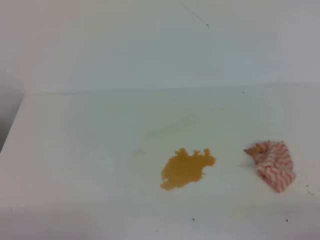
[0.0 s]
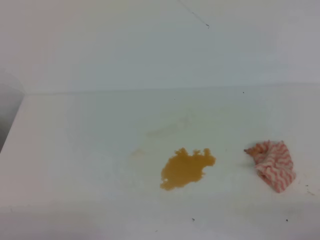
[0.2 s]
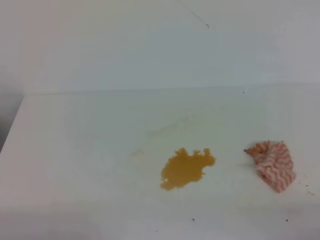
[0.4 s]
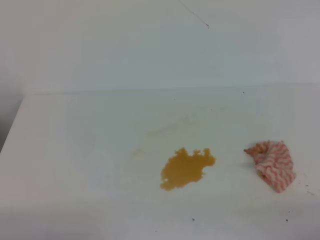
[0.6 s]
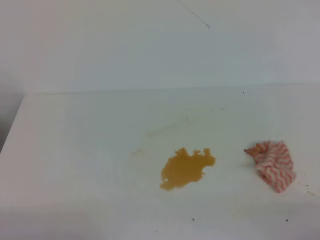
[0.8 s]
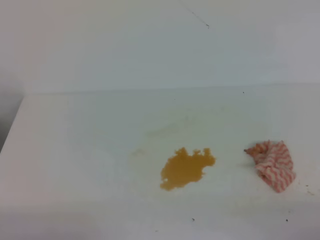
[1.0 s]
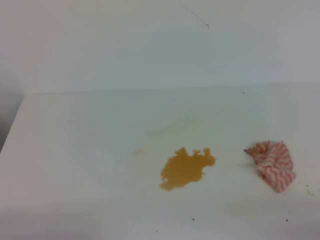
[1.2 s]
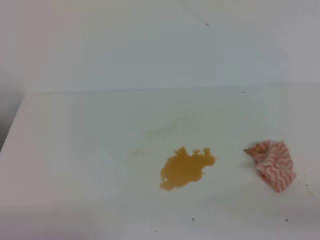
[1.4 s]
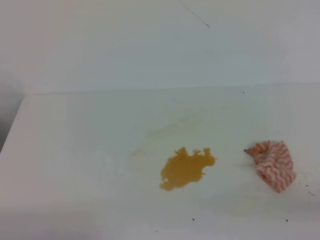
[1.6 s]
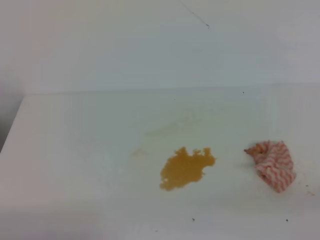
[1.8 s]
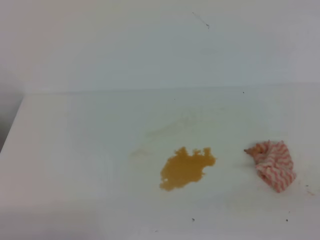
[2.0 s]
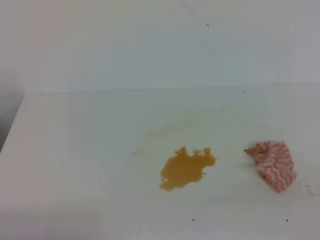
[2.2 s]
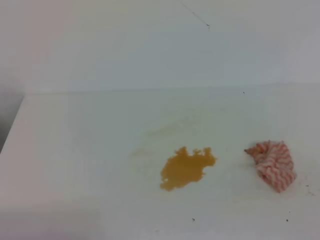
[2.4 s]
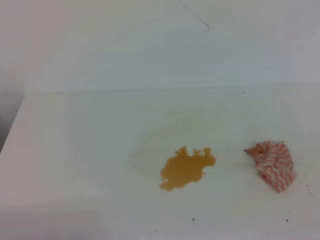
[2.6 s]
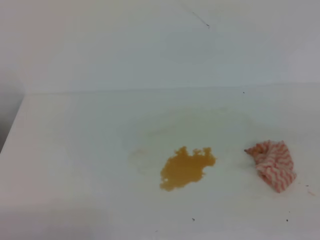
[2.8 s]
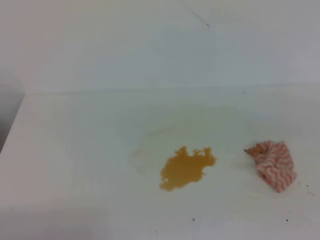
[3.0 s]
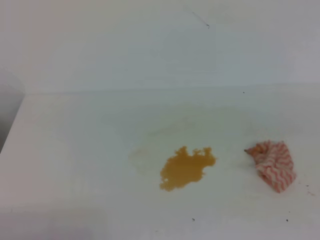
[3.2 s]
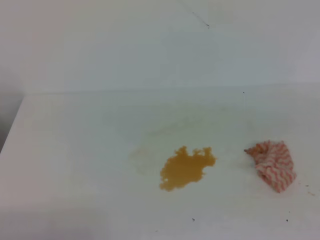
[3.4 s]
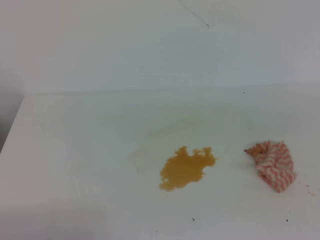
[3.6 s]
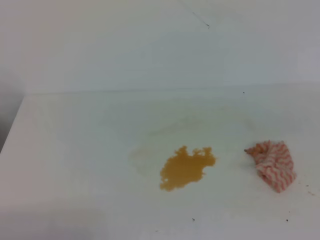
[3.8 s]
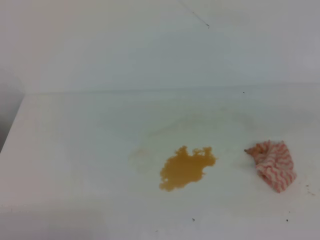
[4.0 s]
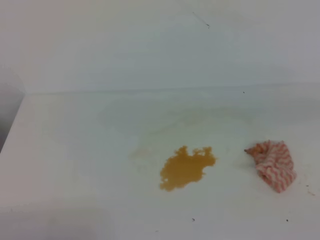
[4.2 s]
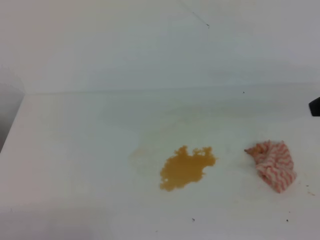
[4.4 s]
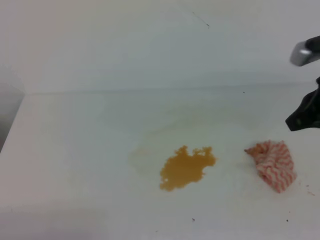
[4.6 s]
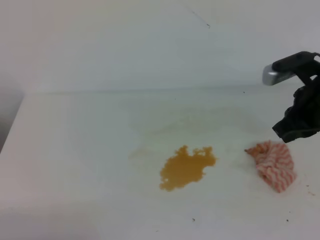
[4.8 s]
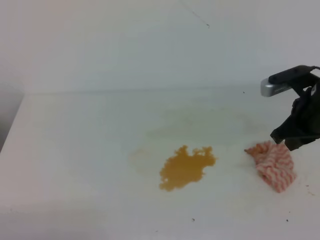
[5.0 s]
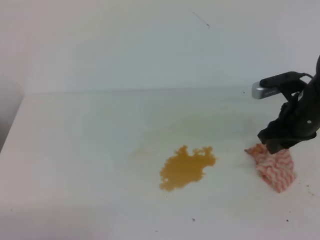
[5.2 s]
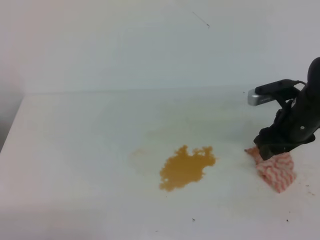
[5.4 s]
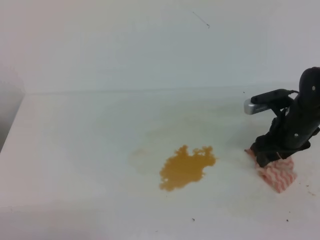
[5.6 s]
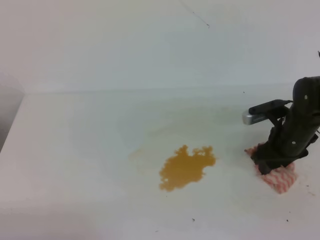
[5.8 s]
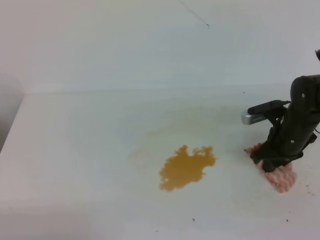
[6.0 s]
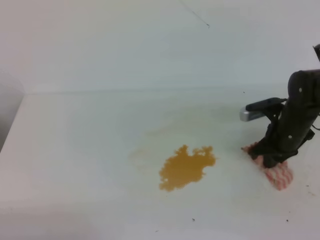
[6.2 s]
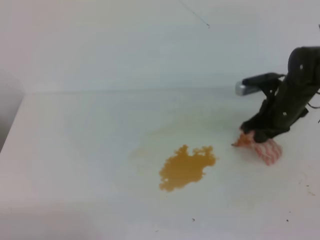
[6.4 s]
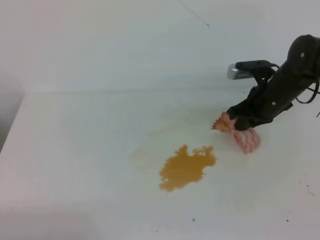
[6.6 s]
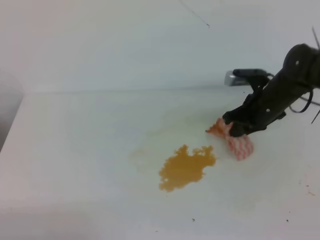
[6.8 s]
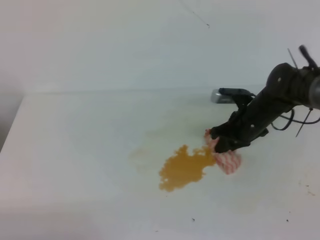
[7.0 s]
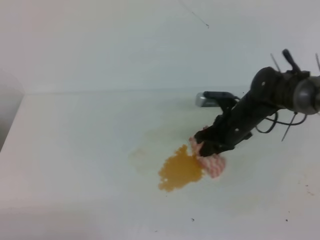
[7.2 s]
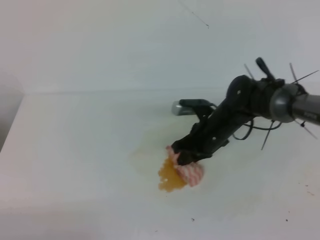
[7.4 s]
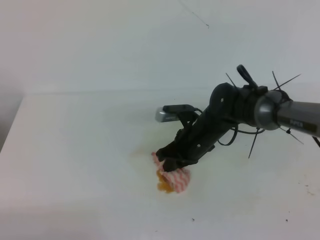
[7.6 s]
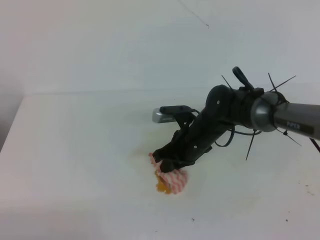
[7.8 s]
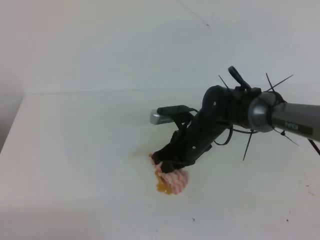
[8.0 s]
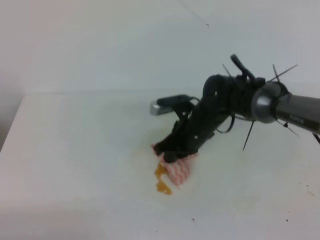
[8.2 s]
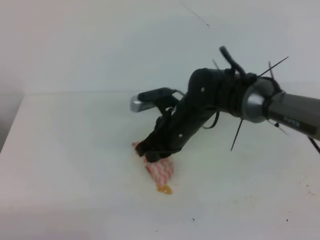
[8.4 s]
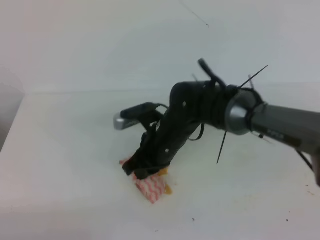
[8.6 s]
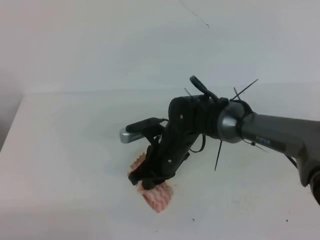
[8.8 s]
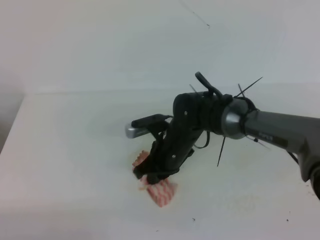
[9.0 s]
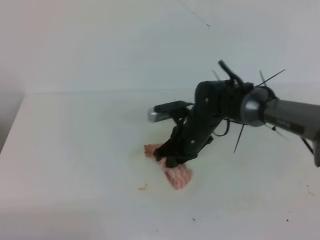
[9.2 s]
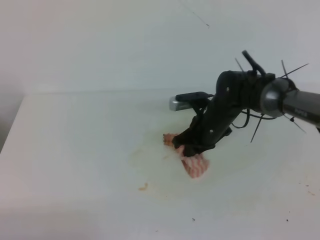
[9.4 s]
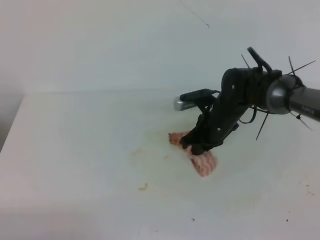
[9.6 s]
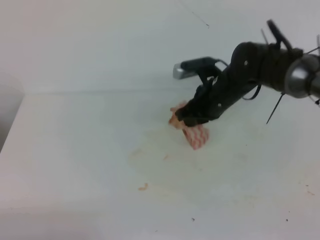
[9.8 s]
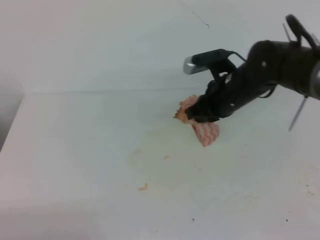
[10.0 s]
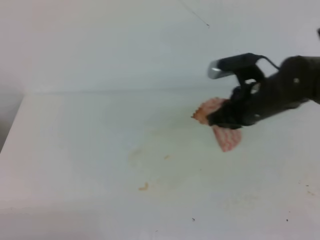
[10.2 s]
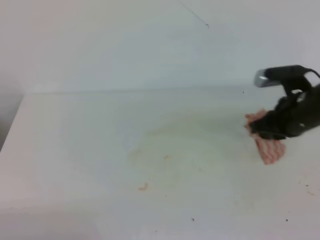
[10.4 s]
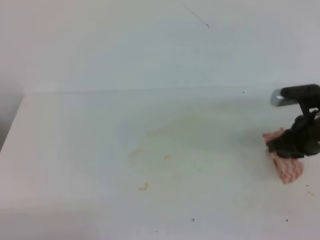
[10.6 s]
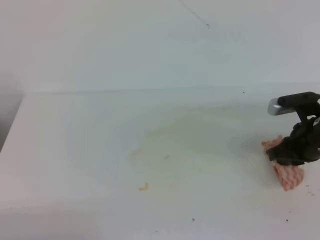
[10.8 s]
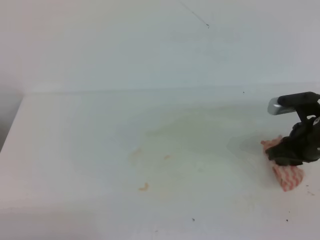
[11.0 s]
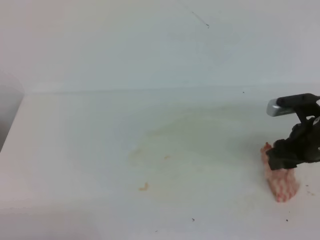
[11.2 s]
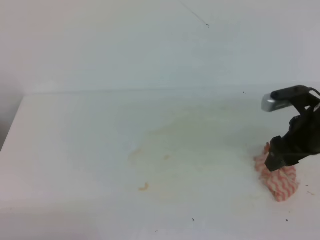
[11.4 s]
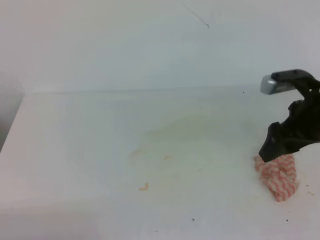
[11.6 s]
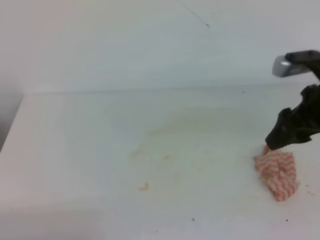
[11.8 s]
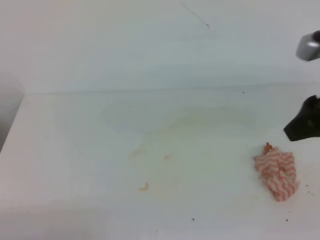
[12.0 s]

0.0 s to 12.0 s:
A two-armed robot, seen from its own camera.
4.4 to 6.0 s: The right gripper shifts roughly 25 cm downward and forward, and opens its fingers.
6.0 to 7.6 s: The right gripper moves to the left, approximately 15 cm, and closes its fingers.
7.6 to 9.0 s: The right gripper travels upward and back again, some 10 cm each way.
9.0 to 10.4 s: The right gripper travels to the right and upward by roughly 20 cm.
10.4 to 12.0 s: The right gripper travels upward and backward by about 15 cm, and opens up.

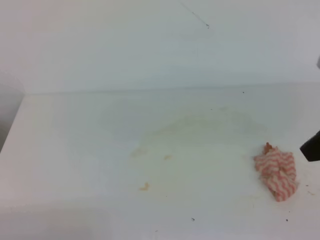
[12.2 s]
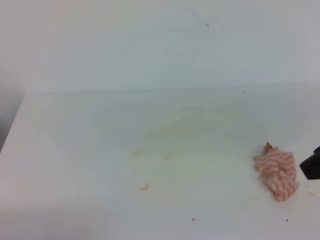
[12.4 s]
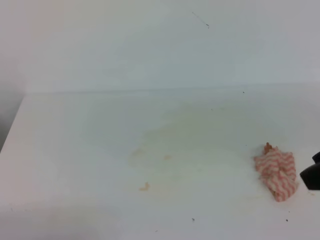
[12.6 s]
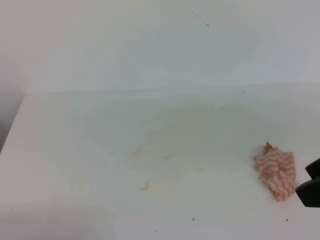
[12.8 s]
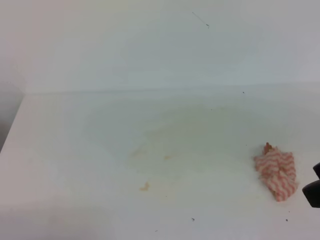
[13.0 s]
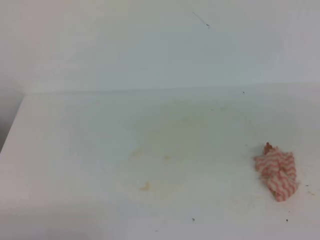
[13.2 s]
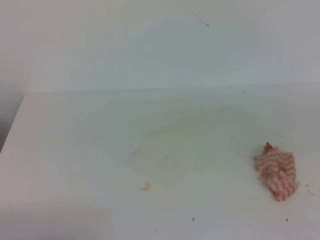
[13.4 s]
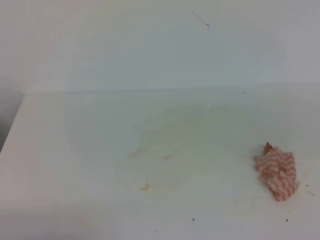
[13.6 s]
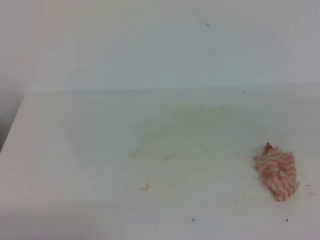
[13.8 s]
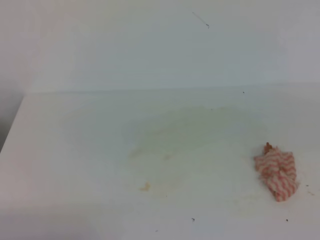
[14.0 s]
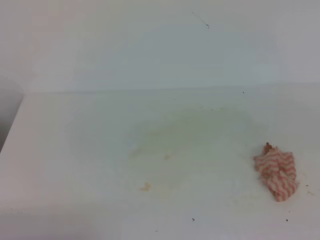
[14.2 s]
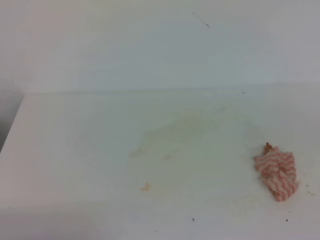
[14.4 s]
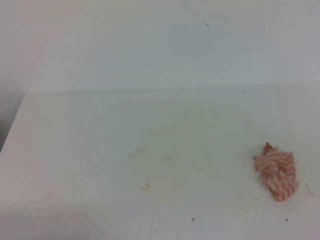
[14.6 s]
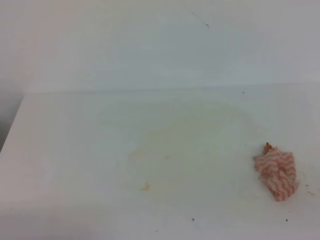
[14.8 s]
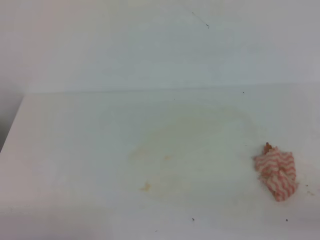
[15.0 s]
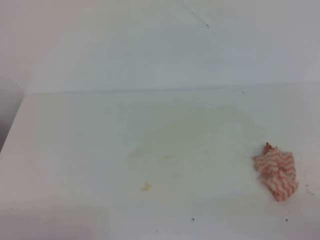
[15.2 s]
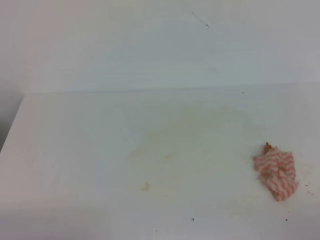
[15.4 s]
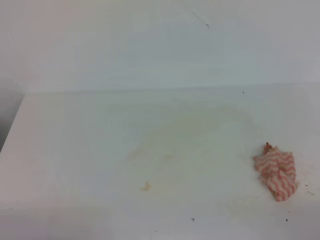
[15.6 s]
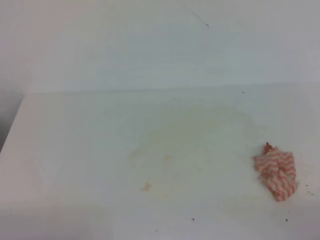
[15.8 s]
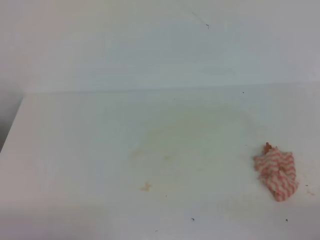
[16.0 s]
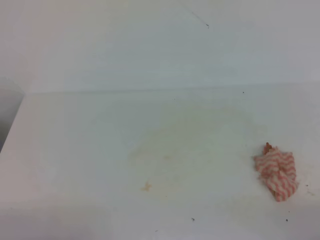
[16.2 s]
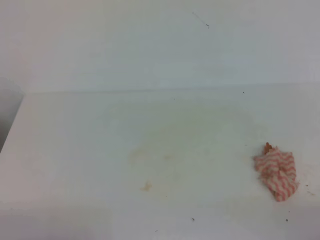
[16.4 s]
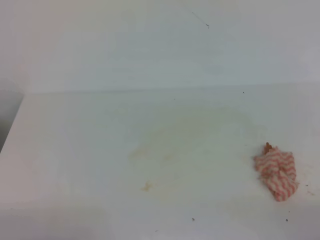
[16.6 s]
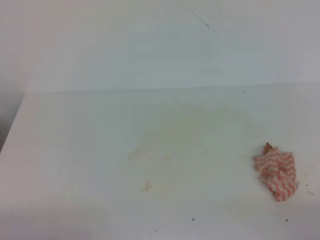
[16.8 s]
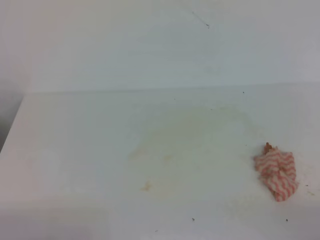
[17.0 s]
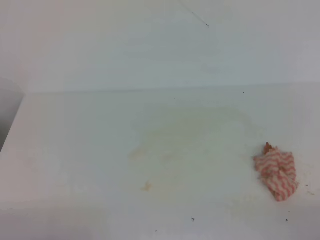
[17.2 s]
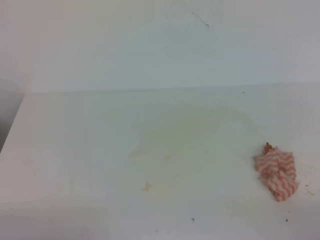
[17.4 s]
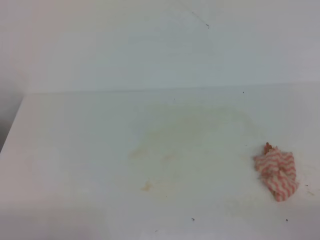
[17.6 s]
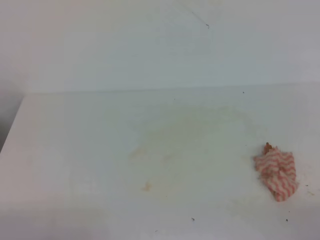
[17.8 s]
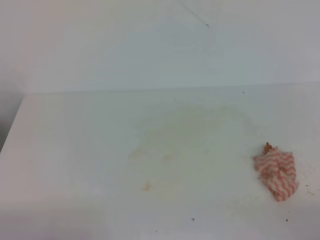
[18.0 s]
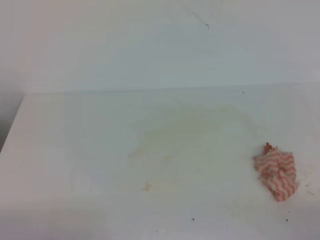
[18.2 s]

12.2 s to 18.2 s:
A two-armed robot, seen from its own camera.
16.6 to 18.2 s: Neither gripper changes place.

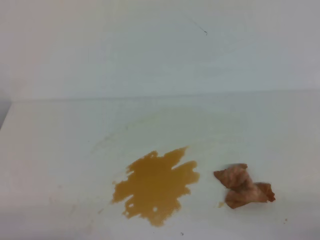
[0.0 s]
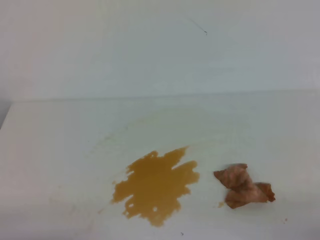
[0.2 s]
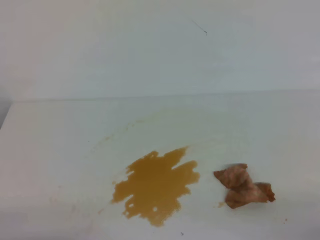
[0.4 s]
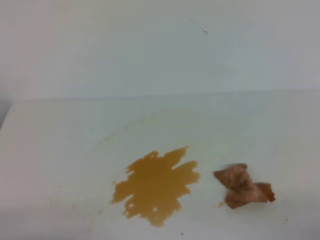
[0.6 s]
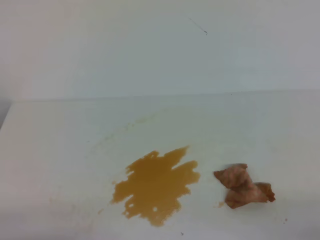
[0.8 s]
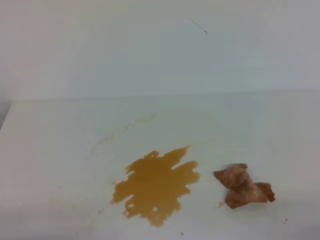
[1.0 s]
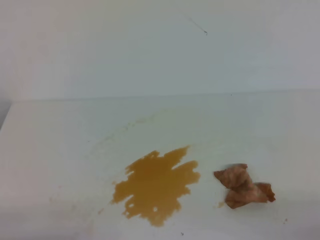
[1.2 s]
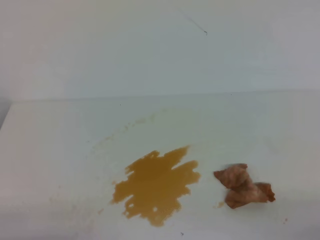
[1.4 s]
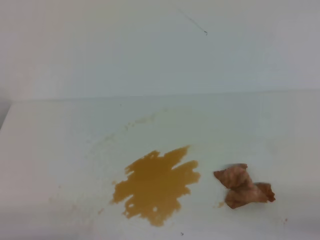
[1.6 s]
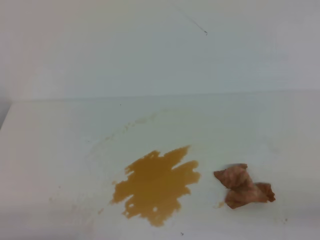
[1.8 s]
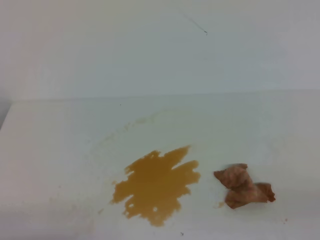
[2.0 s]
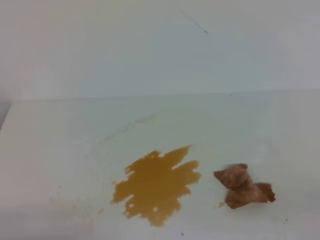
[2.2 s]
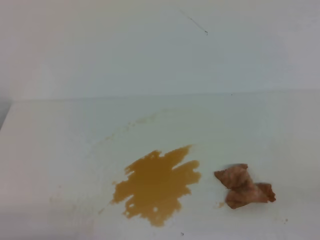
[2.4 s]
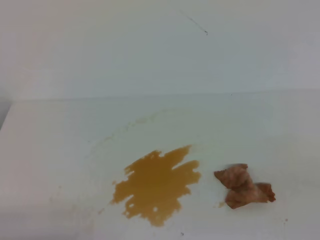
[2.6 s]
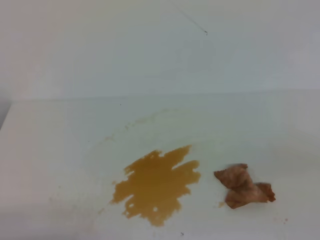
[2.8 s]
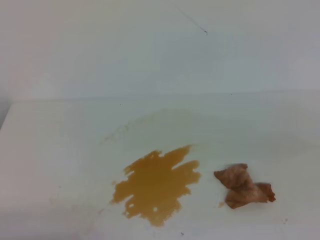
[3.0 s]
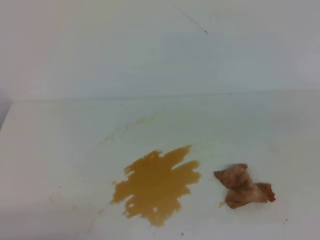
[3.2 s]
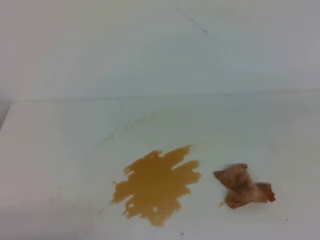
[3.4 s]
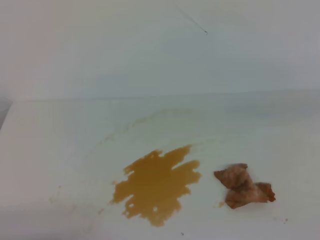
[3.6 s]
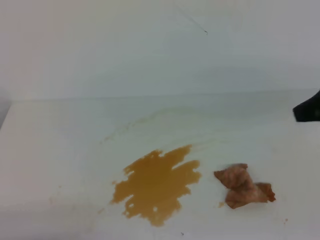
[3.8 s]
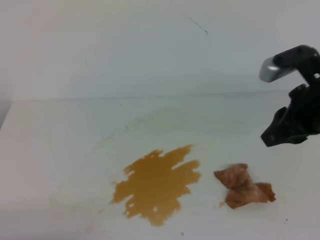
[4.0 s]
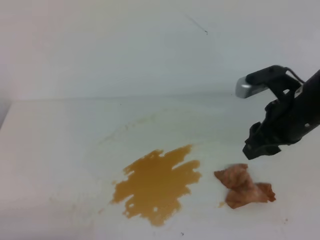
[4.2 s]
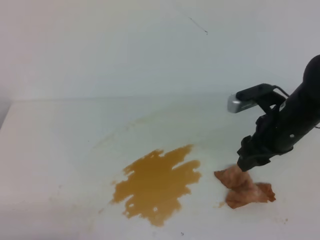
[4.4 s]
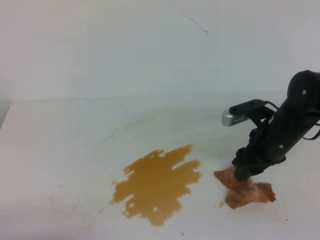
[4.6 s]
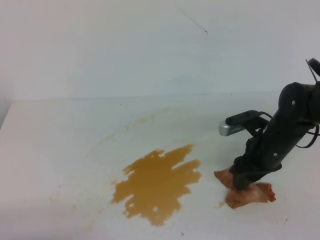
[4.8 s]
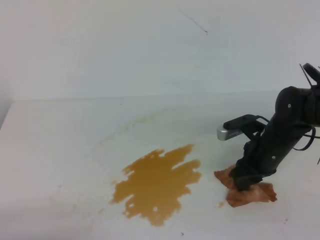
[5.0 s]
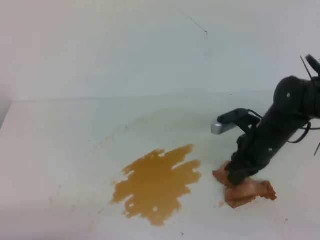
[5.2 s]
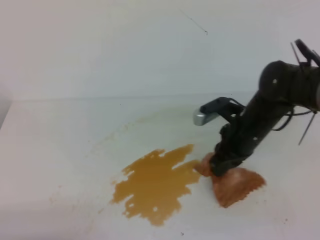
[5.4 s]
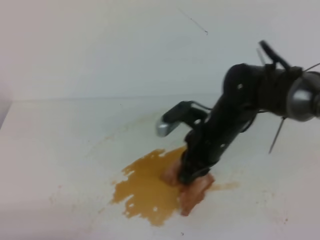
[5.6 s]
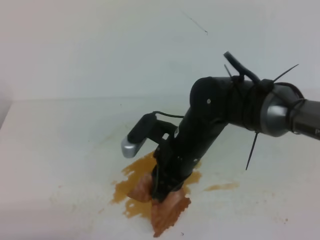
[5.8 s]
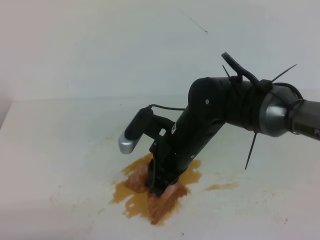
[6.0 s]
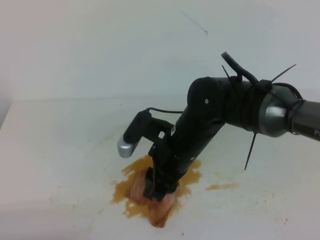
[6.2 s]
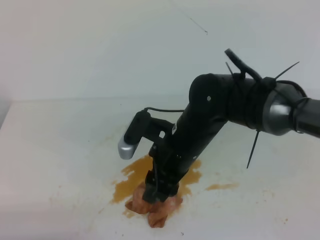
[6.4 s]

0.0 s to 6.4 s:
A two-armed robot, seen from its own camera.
3.2 to 4.8 s: The right gripper travels forward, downward and to the left by roughly 30 cm, and opens.
4.8 to 6.4 s: The right gripper shifts approximately 15 cm to the left and upward, and closes, then reopens.
